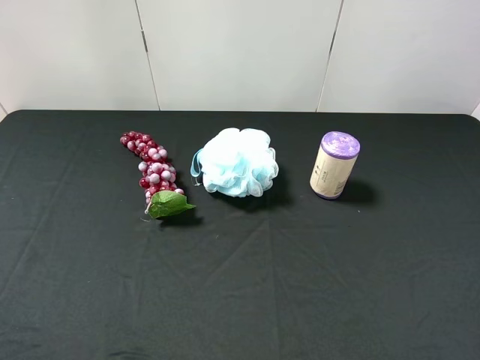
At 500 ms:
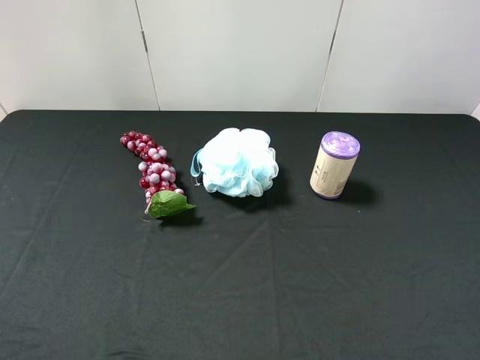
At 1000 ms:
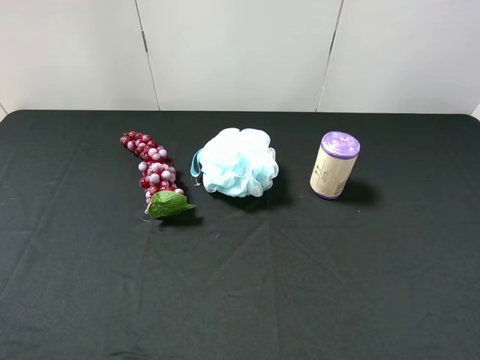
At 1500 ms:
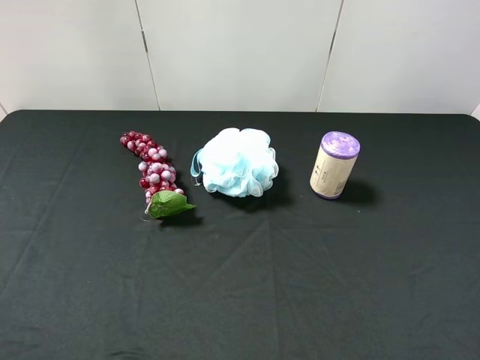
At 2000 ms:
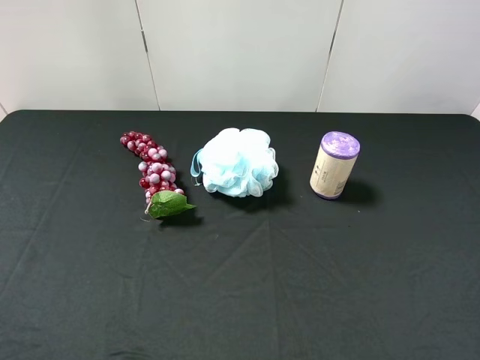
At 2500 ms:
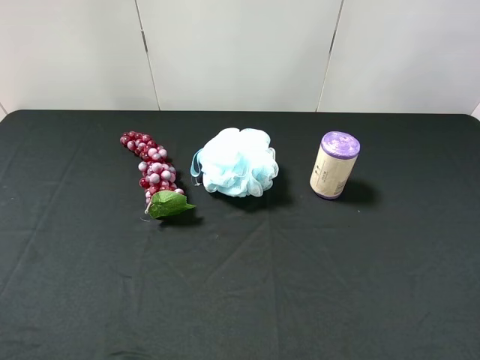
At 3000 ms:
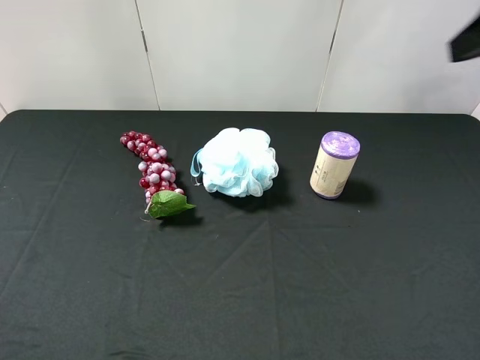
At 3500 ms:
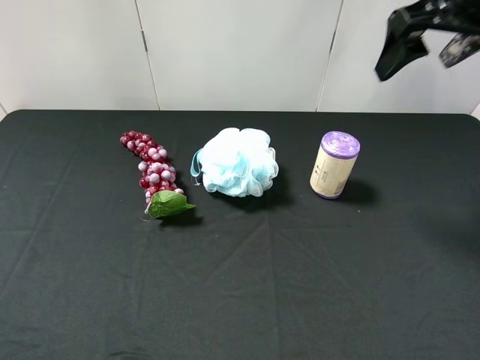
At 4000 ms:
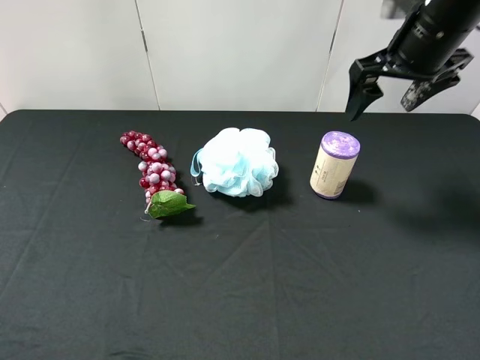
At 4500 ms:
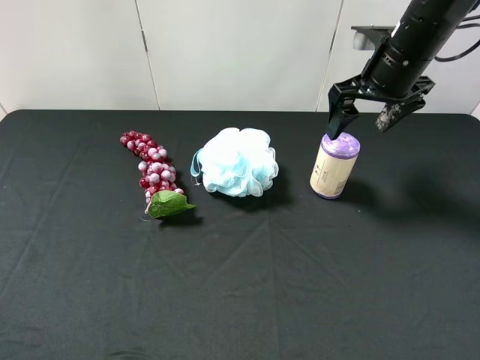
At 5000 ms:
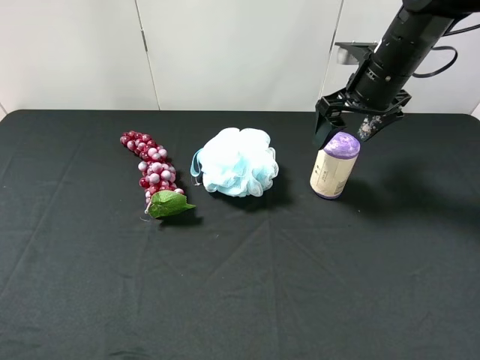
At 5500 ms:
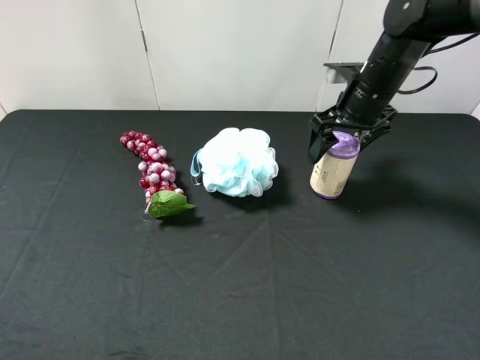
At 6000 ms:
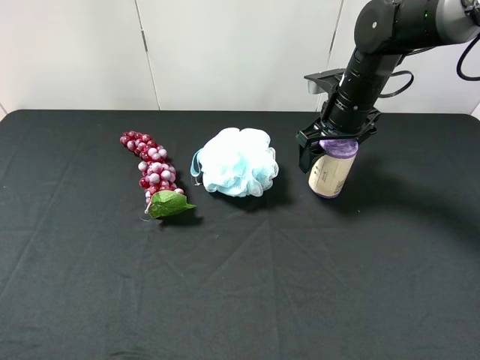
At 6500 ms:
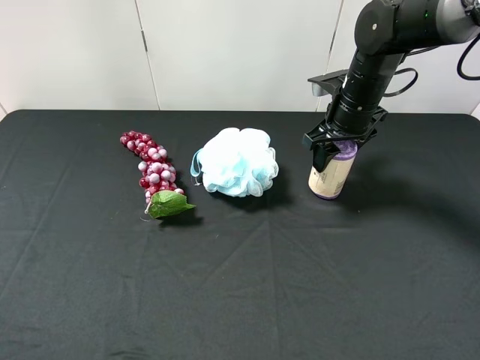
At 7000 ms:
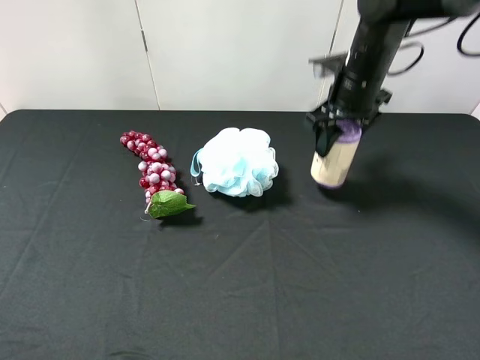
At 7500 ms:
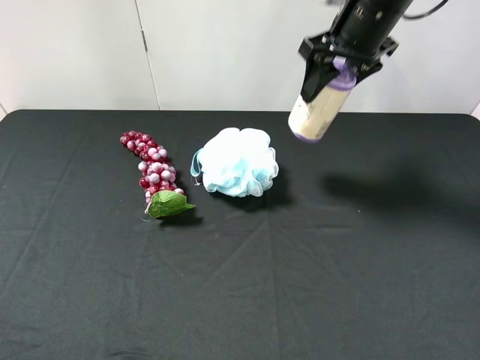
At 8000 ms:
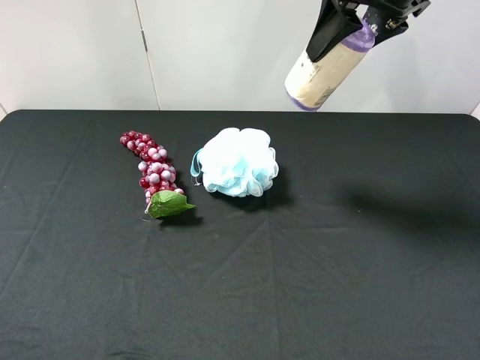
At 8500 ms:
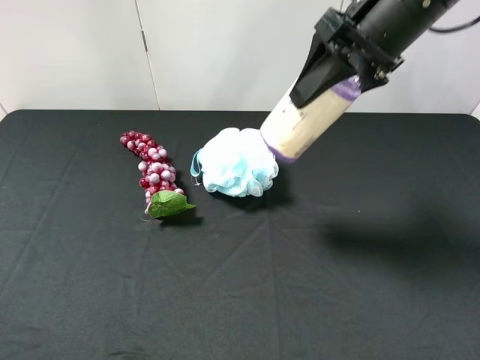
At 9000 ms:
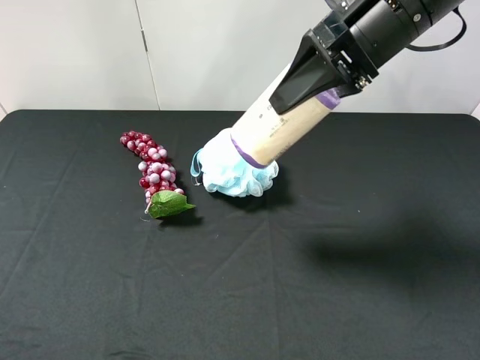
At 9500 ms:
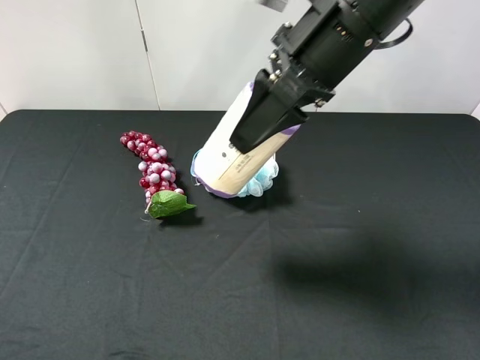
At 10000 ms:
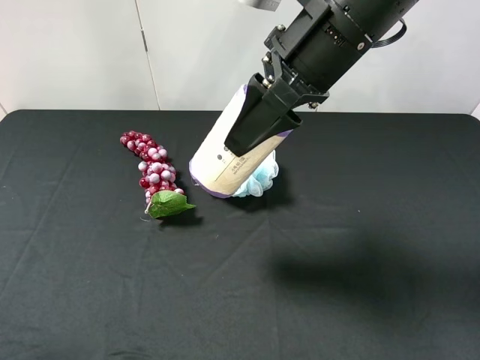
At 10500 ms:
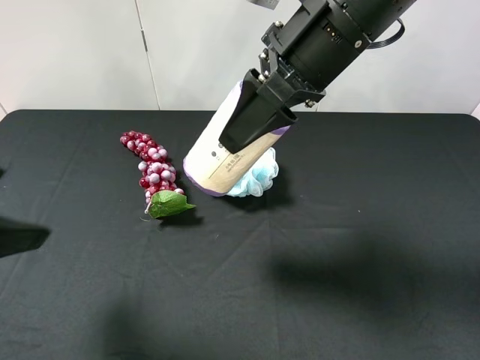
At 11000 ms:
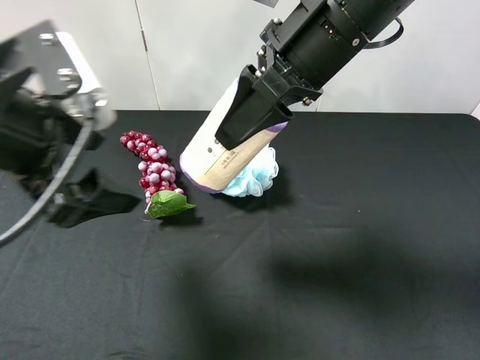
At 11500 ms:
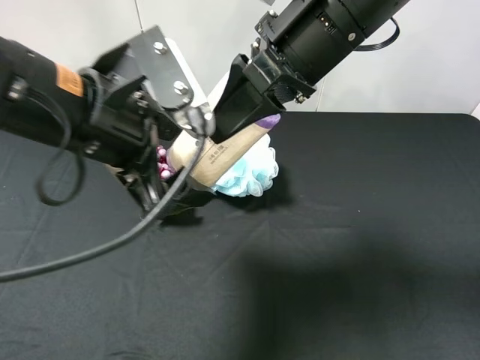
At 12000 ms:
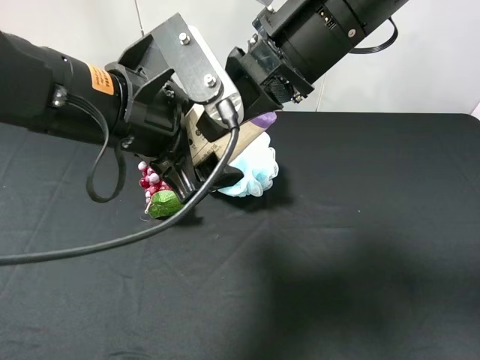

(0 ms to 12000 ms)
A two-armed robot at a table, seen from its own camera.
Task of the whole recording: use the right gripper to pick up the item and transfer it from the right gripper to the left gripper.
Step, 0 ms - 6500 ms: Use the right gripper to grab the purple garbage bag on the right side of the table.
2000 ms - 4000 ms: The right gripper is displaced forward by roughly 35 cm.
4000 ms - 6000 ms: The right gripper is displaced downward by approximately 10 cm.
6000 ms - 8000 ms: The right gripper is displaced upward by approximately 20 cm, and closes its fingers.
8000 ms - 10000 ms: The left gripper shifts roughly 5 cm forward. The right gripper is displaced to the left and backward by approximately 10 cm.
10000 ms - 12000 ms: The left gripper is displaced to the right and forward by about 25 cm.

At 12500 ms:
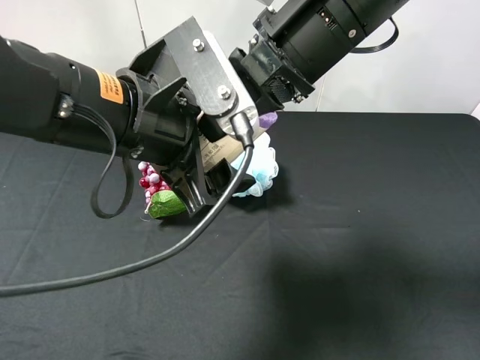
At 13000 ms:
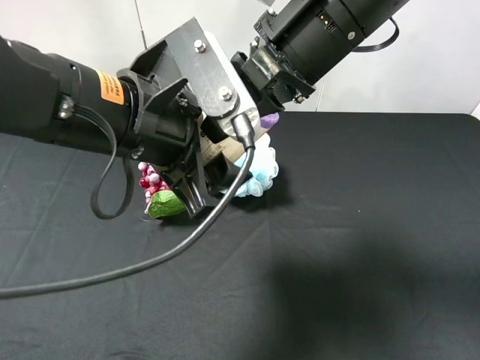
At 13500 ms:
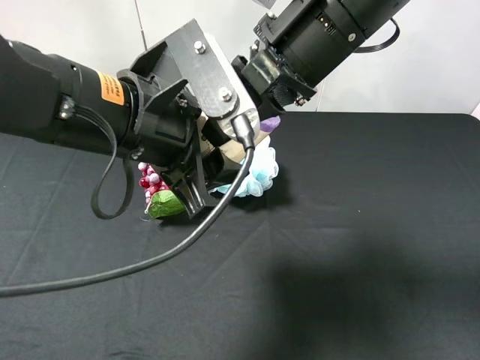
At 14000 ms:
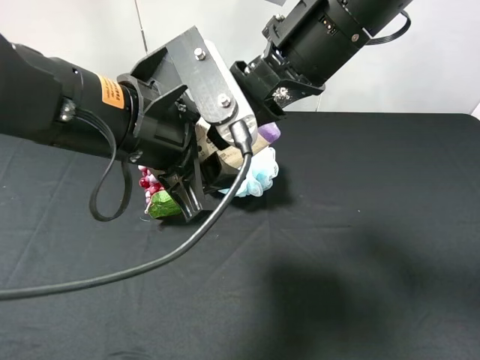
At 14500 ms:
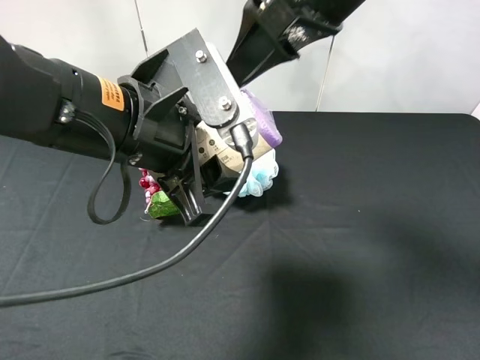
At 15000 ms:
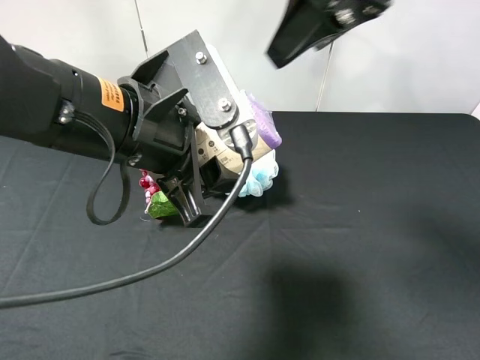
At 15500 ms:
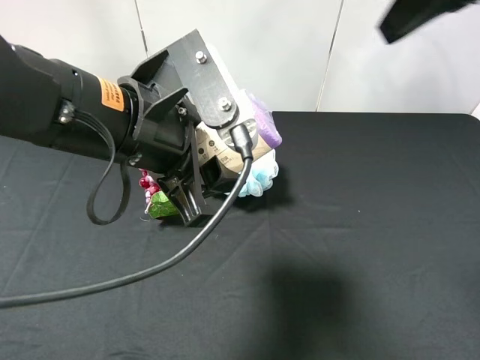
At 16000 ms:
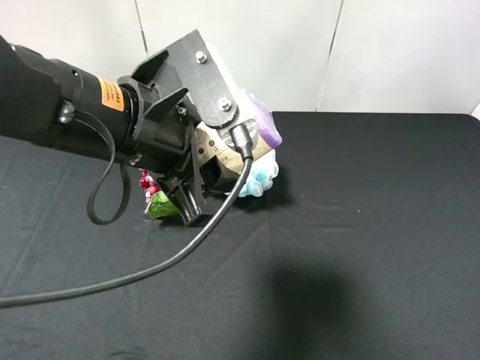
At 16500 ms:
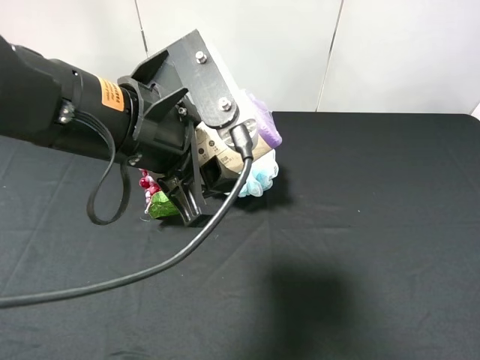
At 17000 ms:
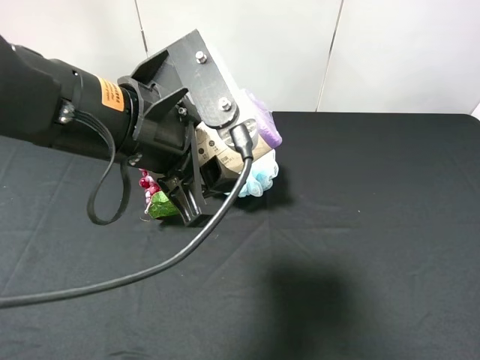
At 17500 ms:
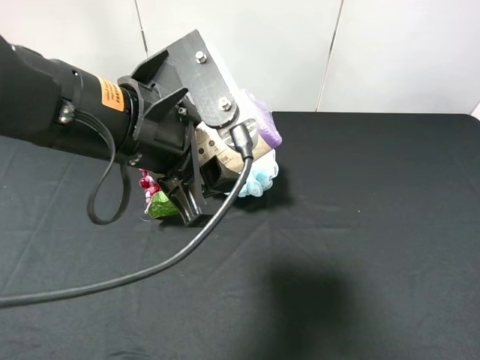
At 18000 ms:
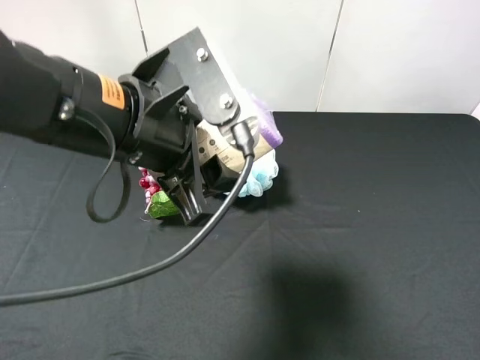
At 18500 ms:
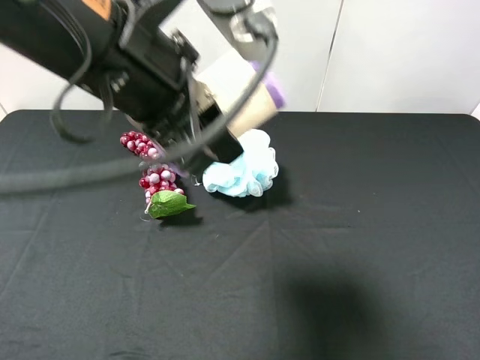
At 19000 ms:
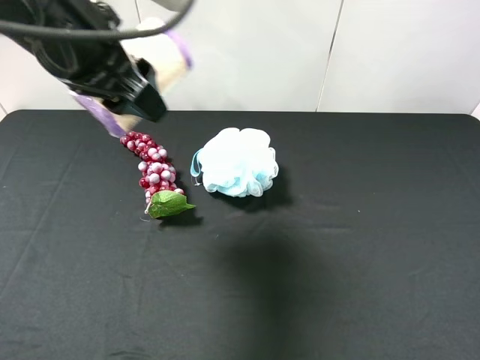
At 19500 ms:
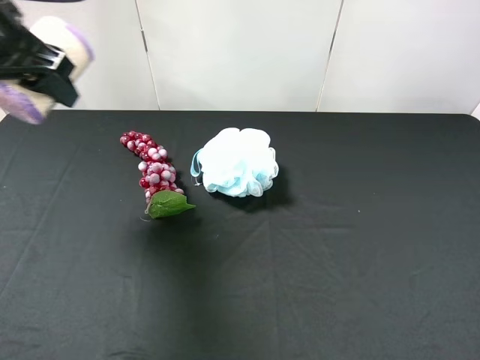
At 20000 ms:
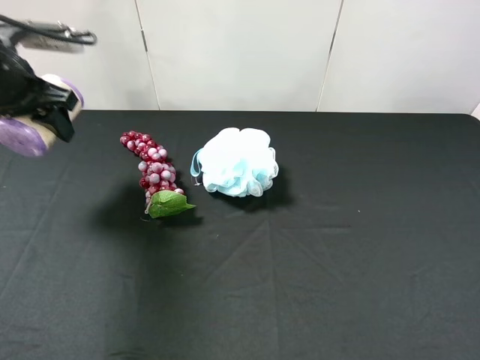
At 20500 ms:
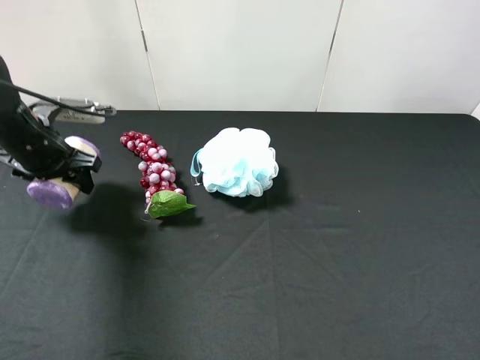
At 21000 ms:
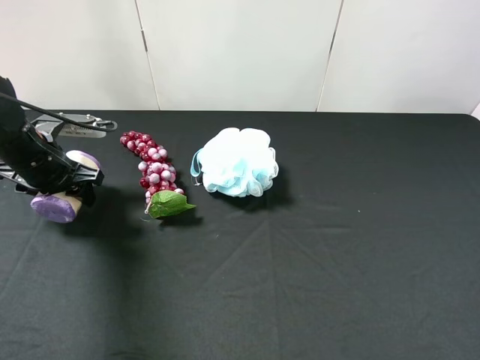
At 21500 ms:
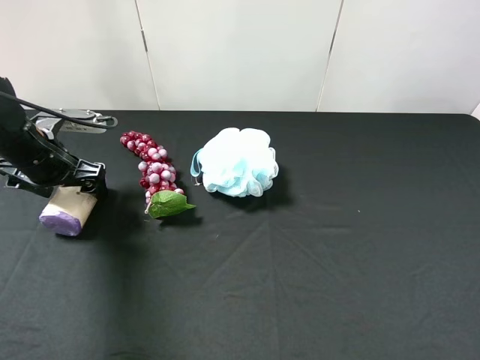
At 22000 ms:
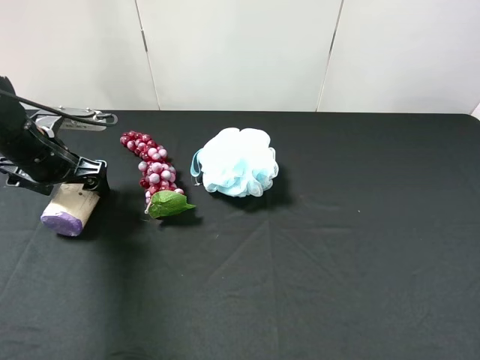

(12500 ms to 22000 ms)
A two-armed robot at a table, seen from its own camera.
Task of the whole recording: use the right gripper to pick up the item and transfer it from the right gripper to the left gripper.
Step, 14000 ms - 21500 ms: The left gripper places purple garbage bag on the left side of the table.
12500 ms - 14500 ms: The left gripper closes up. Meanwhile the right gripper ends up roughly 5 cm from where it was, and opens.
14500 ms - 16500 ms: The right gripper goes some 35 cm backward and to the right.
16500 ms - 18000 ms: The grippers stay close to where they were, moving slightly.
18000 ms - 20000 ms: The left gripper shifts approximately 25 cm to the left and forward.
20000 ms - 22000 ms: The left gripper travels downward by approximately 10 cm, and opens its fingers.

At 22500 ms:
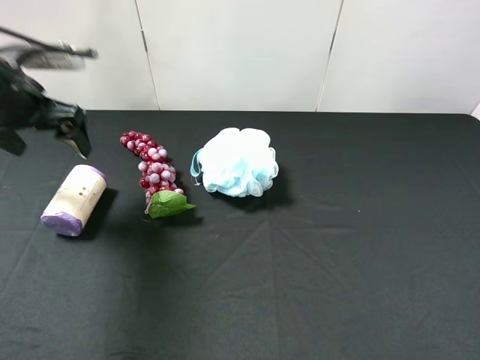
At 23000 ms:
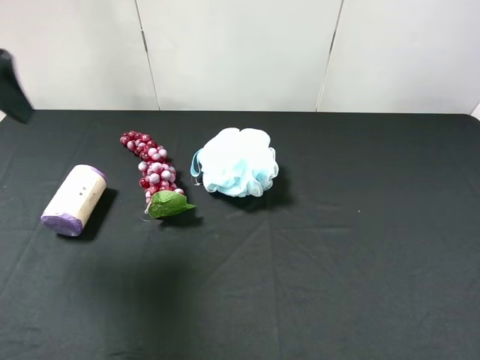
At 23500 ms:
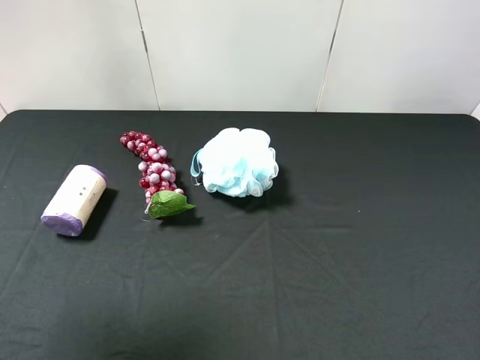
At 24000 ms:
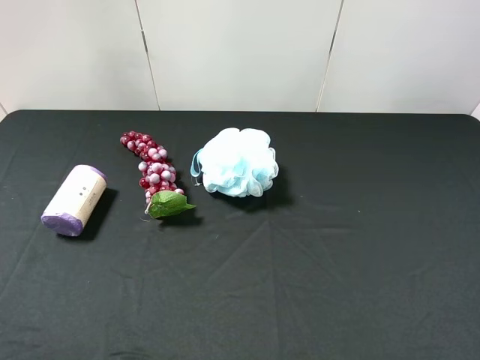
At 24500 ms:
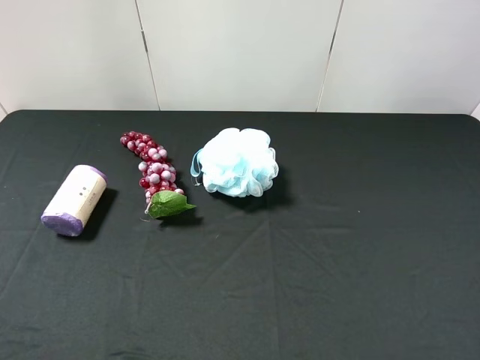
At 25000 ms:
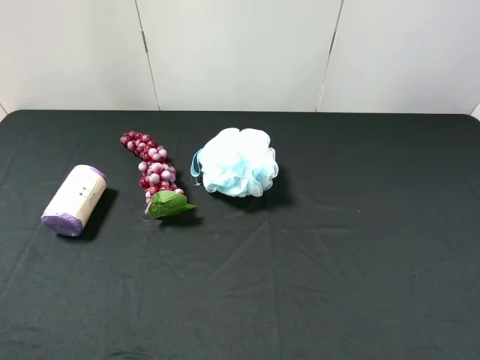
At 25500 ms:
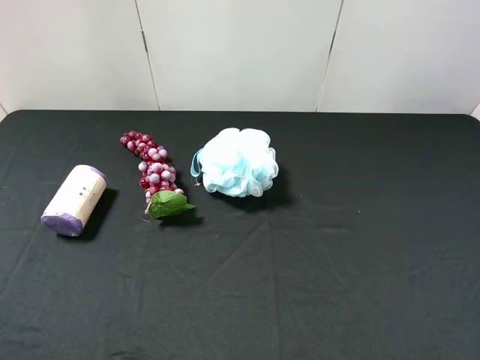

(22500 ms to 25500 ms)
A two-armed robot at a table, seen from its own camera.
Task of the whole recording: use the right gripper to pick up the item and transfer it from the right gripper to the left gripper.
22500 ms - 24000 ms: The left gripper travels backward and upward by approximately 30 cm.
